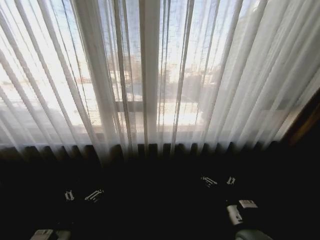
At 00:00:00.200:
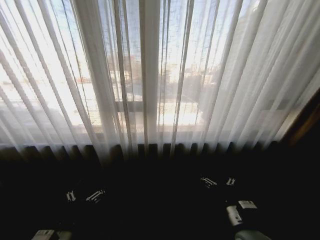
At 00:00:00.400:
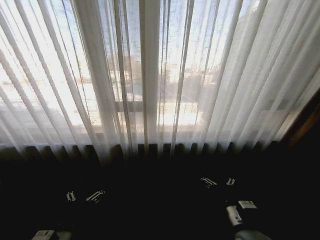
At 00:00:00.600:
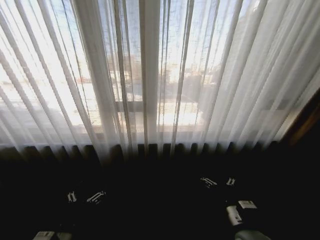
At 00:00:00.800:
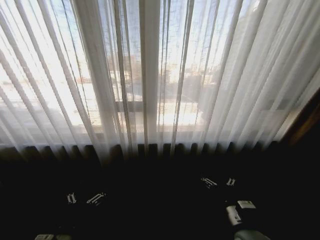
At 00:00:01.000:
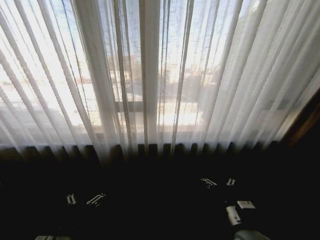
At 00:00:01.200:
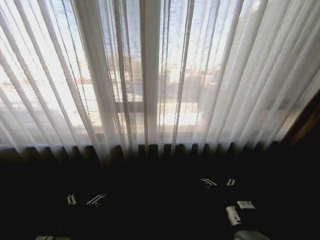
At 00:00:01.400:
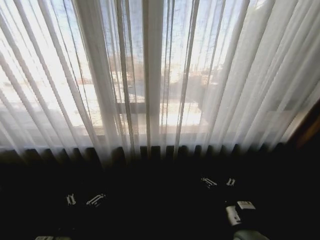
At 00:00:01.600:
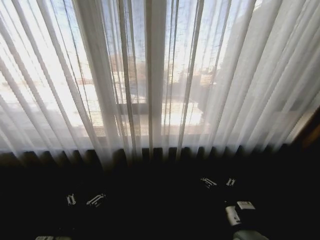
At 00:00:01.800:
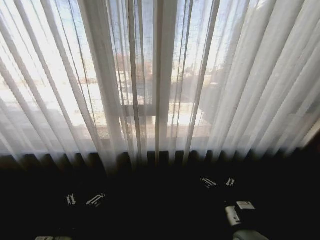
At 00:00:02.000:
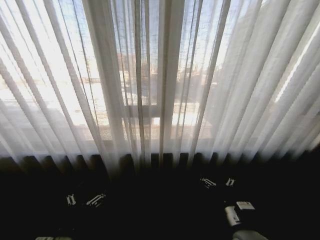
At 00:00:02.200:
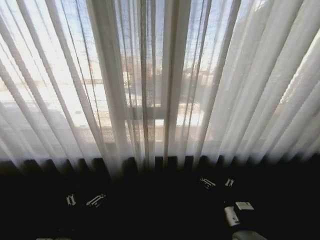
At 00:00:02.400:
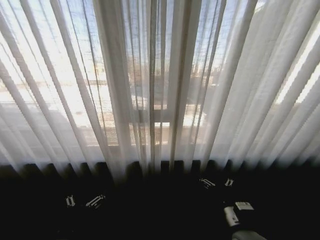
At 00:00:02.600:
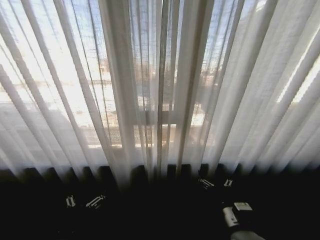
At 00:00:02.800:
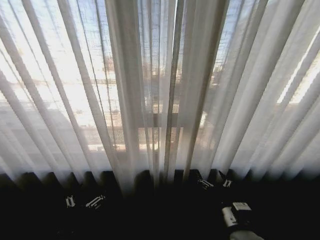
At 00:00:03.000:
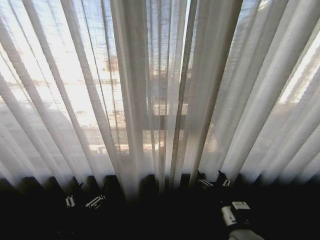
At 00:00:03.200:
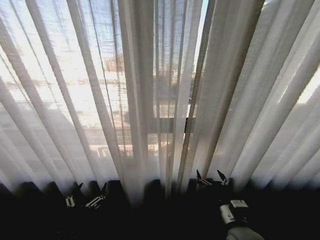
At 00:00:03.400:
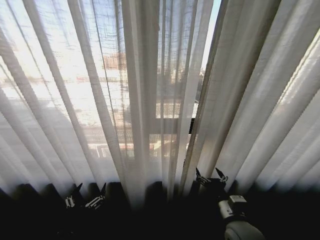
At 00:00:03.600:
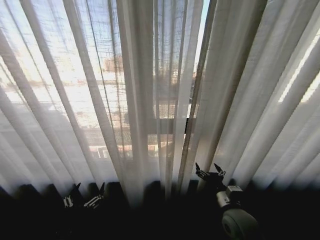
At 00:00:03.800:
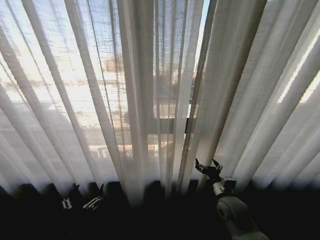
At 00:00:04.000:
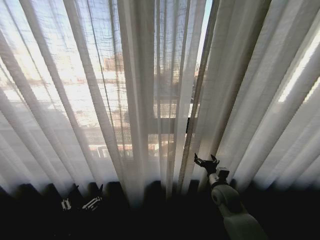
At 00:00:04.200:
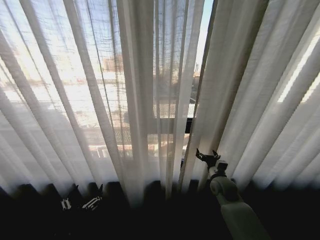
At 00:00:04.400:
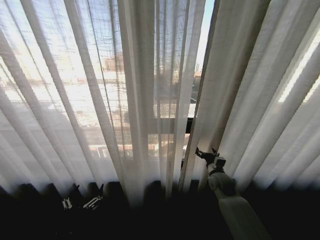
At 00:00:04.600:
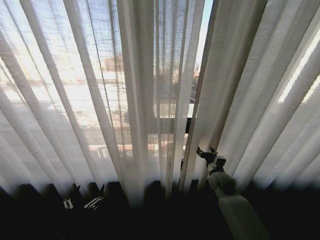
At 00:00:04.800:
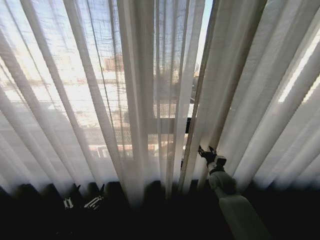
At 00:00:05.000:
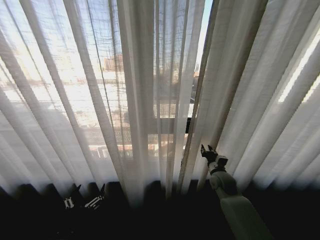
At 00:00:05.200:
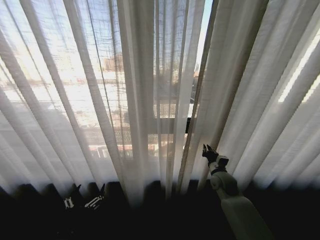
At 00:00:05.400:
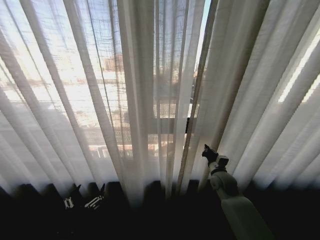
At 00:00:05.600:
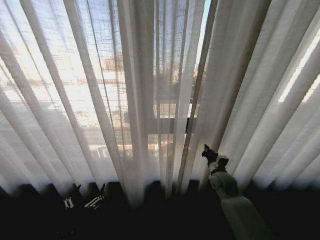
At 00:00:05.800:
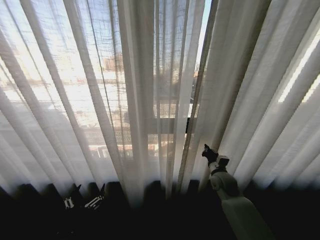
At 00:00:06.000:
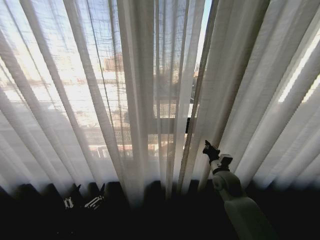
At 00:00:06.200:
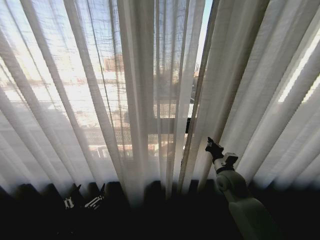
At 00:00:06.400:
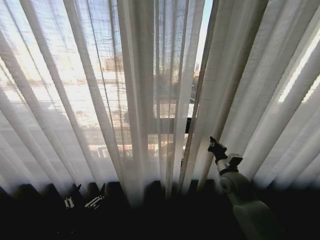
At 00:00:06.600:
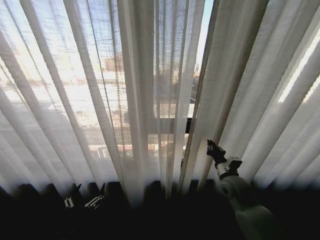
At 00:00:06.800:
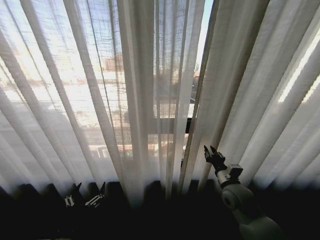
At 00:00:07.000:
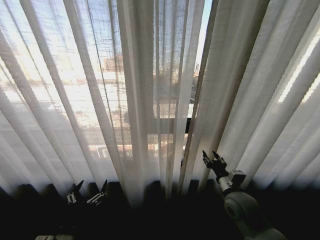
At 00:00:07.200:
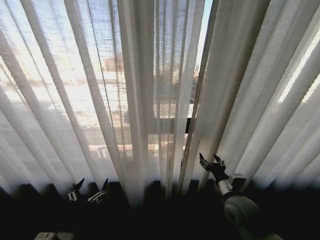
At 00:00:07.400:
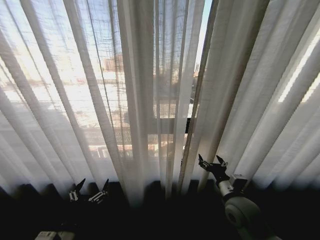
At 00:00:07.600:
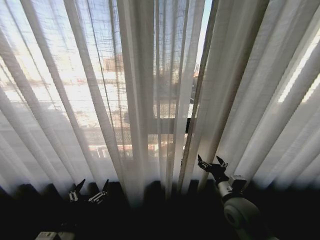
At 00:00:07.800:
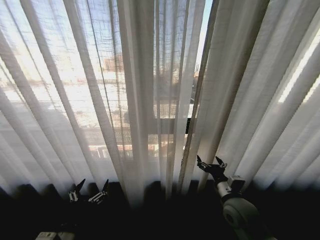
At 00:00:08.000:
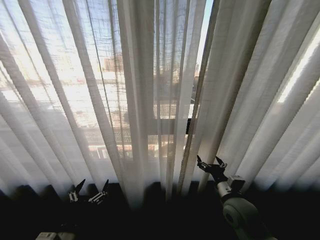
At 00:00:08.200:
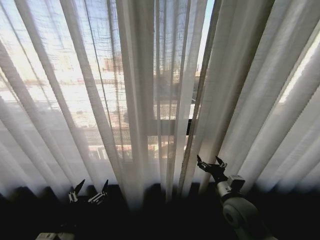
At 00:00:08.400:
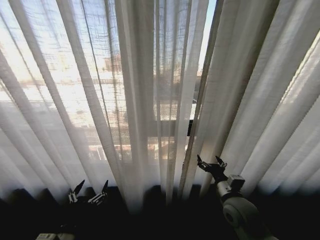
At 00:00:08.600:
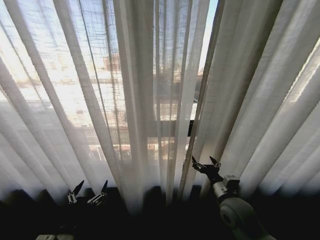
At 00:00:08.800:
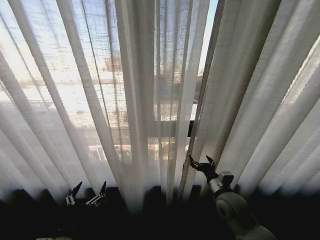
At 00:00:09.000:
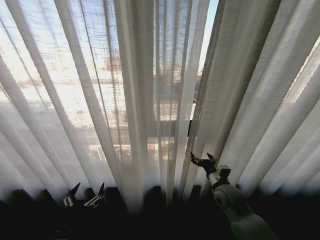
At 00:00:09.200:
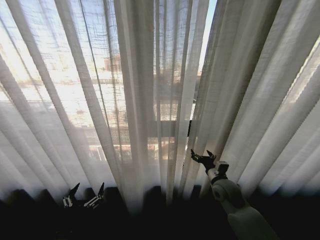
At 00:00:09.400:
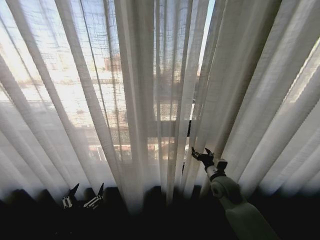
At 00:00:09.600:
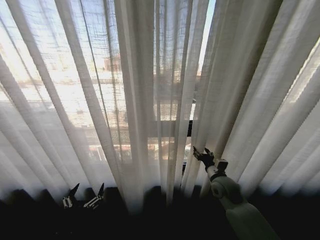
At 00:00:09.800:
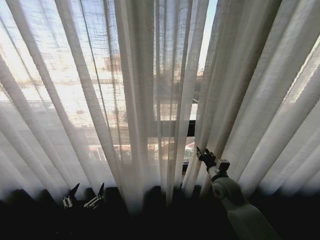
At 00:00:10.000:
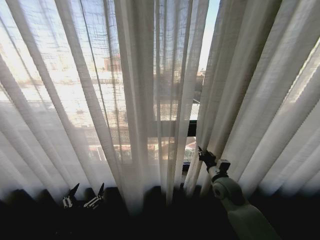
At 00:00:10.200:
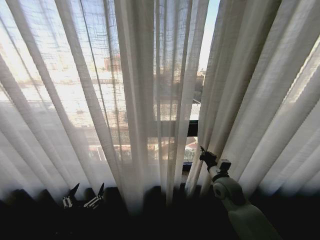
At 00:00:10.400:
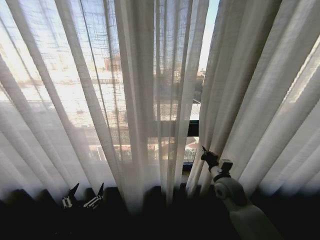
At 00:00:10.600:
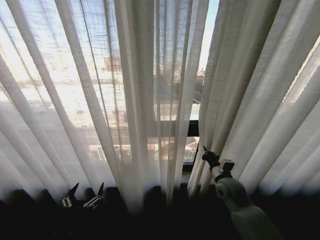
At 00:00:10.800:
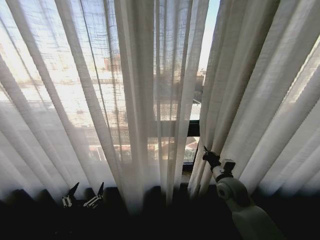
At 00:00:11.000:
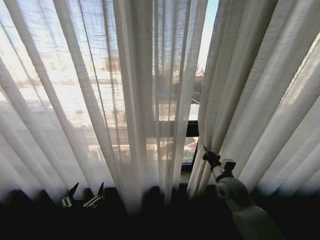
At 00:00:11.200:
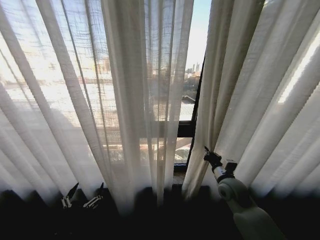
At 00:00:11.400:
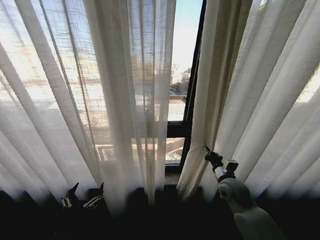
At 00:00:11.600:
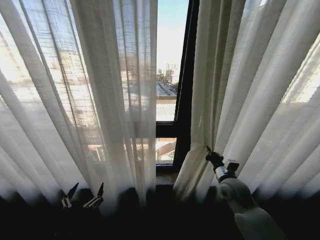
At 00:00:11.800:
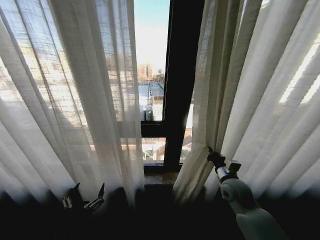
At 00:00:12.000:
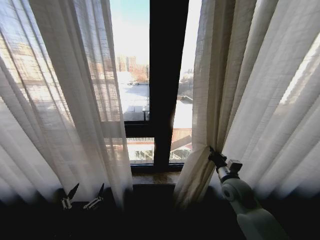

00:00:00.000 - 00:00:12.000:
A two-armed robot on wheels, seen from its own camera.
Task of the whole recording: Open the curtains by pulling them apart, changing their state from closed to fully open.
00:00:03.000 - 00:00:04.400: The right gripper is displaced forward by approximately 20 cm.
00:00:04.400 - 00:00:06.000: The right gripper closes up.
00:00:06.000 - 00:00:07.600: The right gripper moves backward, about 10 cm, and opens its fingers.
00:00:07.600 - 00:00:09.000: The right gripper moves forward, about 5 cm.
00:00:09.000 - 00:00:10.400: The right gripper closes.

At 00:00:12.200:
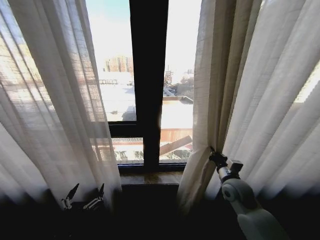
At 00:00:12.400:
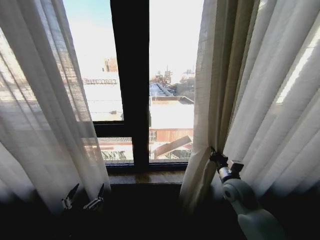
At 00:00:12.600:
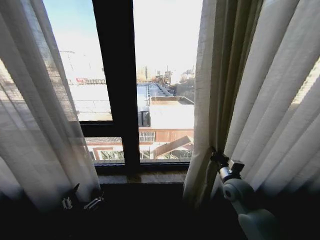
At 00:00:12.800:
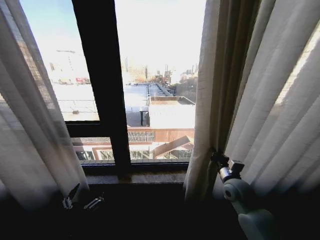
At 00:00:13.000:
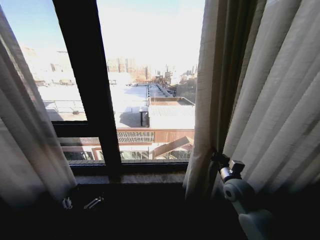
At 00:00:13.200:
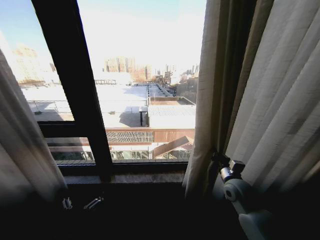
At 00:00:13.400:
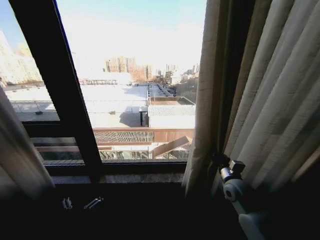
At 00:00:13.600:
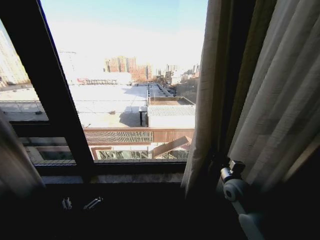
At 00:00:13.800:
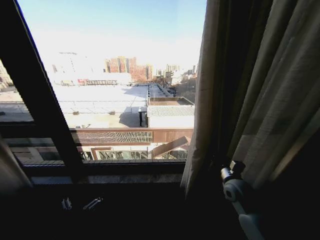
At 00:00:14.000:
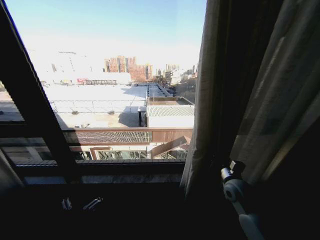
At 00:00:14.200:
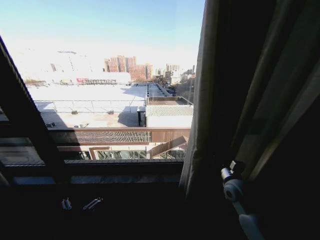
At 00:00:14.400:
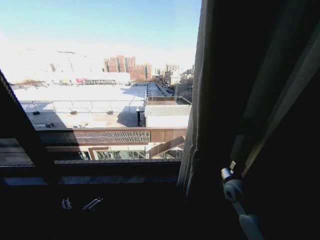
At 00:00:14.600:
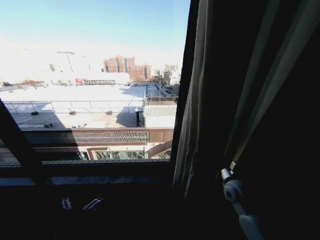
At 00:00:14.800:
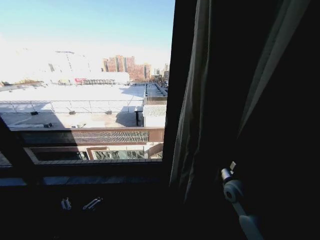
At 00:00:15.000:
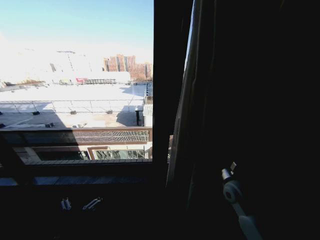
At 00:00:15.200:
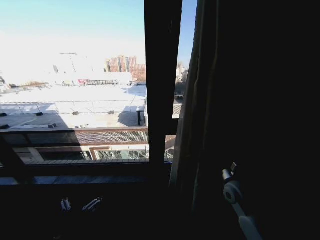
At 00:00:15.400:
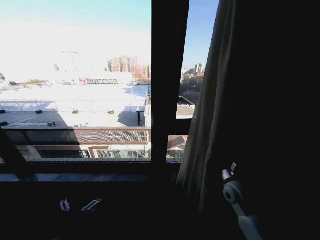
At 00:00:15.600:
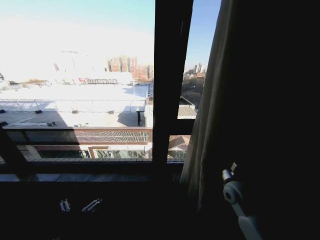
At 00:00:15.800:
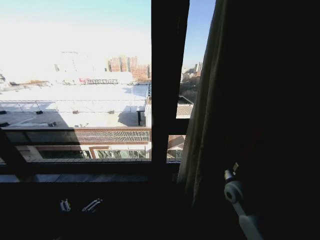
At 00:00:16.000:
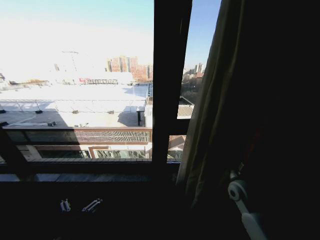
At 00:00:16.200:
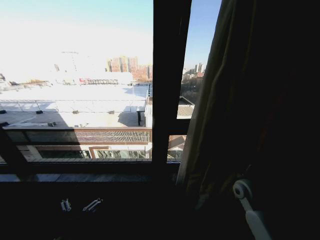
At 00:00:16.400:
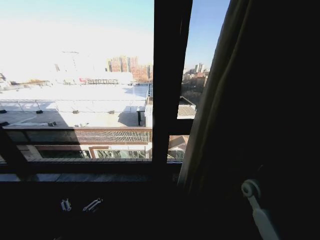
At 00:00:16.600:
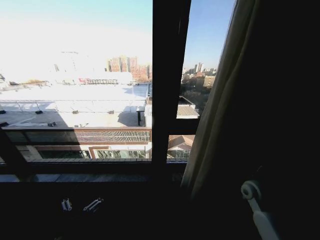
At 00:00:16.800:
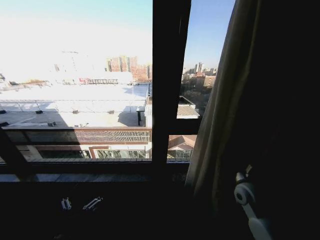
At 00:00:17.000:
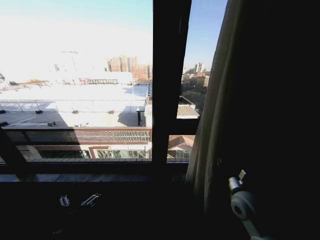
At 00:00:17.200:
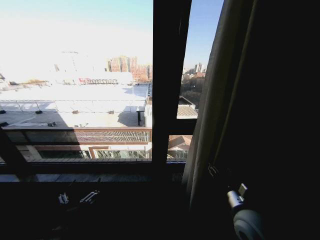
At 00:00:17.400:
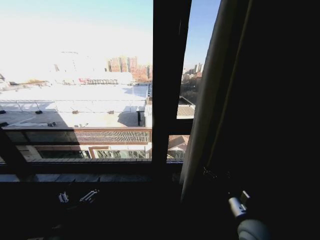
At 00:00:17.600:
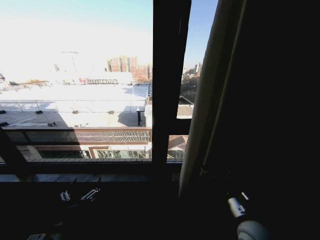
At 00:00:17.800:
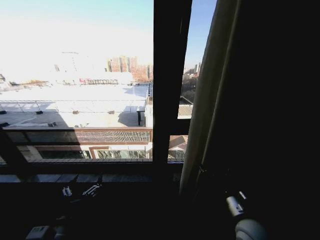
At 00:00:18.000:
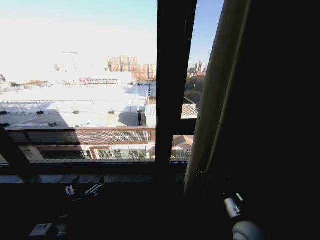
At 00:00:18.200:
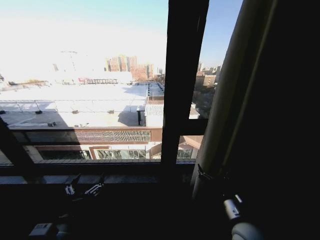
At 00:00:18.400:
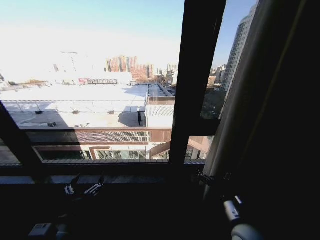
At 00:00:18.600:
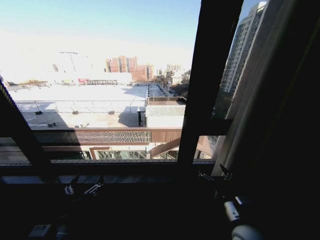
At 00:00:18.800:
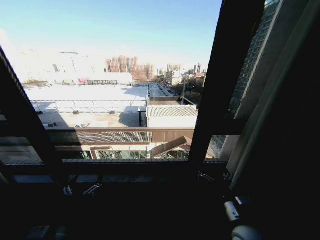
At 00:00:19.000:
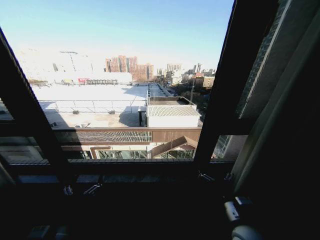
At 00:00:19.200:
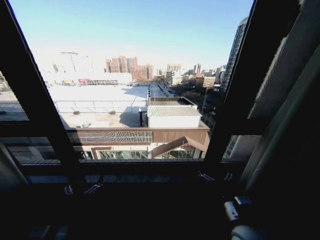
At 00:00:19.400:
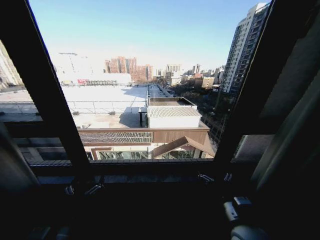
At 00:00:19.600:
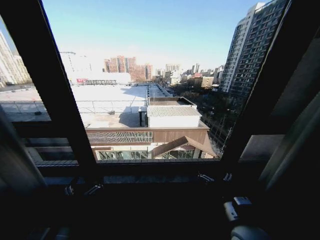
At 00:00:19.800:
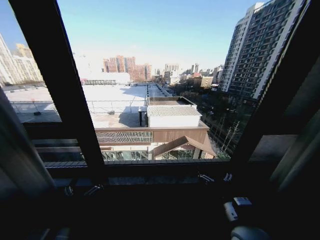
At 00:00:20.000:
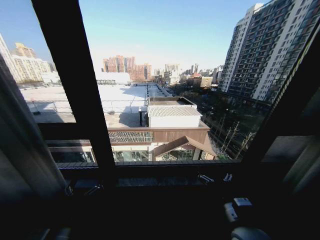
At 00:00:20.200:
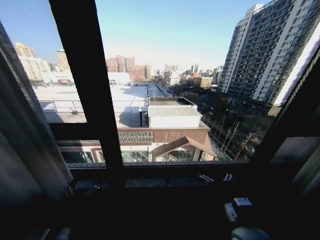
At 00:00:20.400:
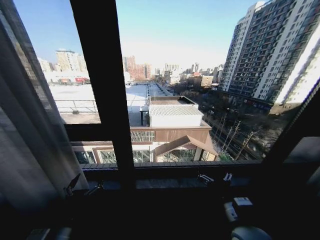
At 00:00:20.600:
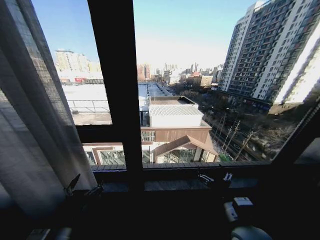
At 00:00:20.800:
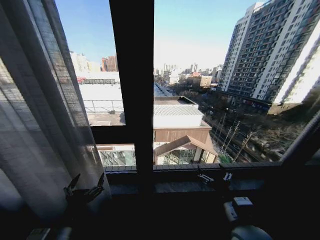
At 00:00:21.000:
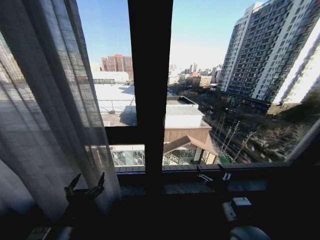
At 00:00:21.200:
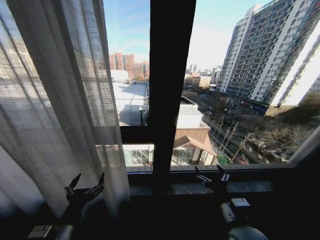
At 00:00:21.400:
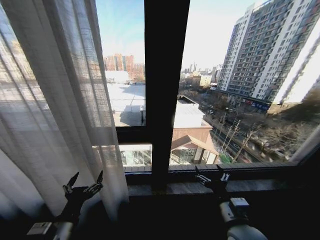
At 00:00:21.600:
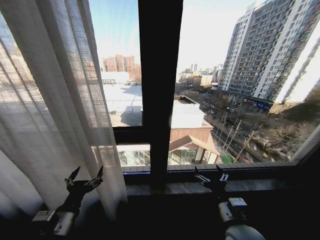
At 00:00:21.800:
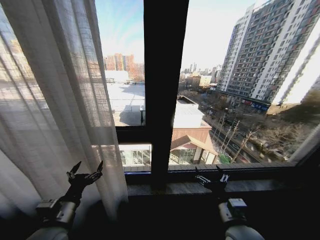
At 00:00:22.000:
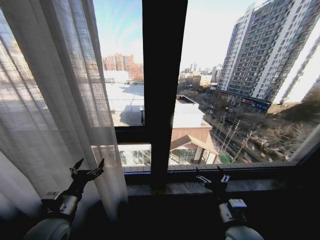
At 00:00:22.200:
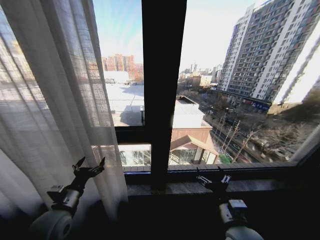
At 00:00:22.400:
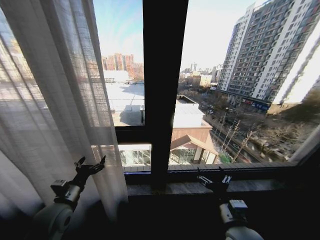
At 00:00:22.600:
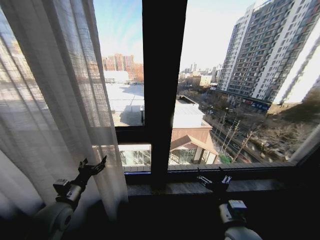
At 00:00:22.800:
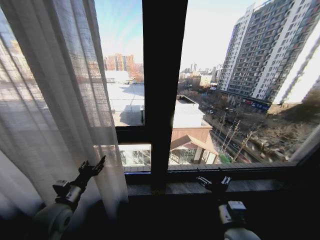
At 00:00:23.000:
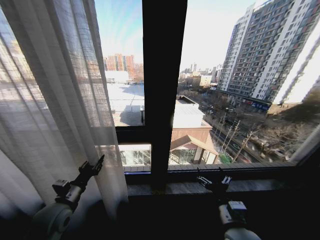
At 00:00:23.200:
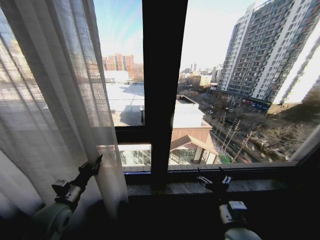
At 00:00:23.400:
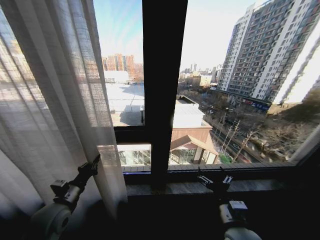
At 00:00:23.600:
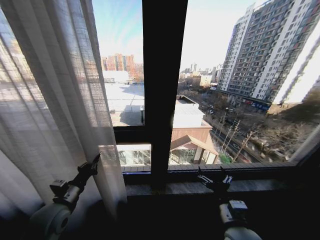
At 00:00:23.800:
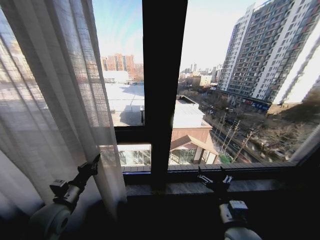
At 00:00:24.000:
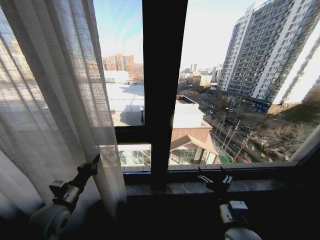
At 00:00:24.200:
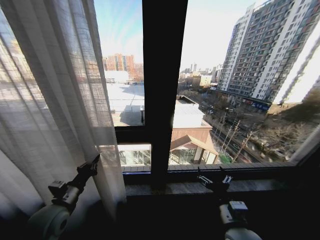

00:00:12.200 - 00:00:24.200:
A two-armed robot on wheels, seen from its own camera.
Task of the whole recording: Open the curtains by pulling them apart, changing their state from closed to fully open.
00:00:15.200 - 00:00:16.600: The right gripper travels to the right by approximately 10 cm.
00:00:16.600 - 00:00:18.200: The right gripper shifts some 20 cm to the left and backward, and opens its fingers.
00:00:21.200 - 00:00:22.600: The left gripper goes about 15 cm forward and to the left.
00:00:22.600 - 00:00:24.200: The left gripper closes.
